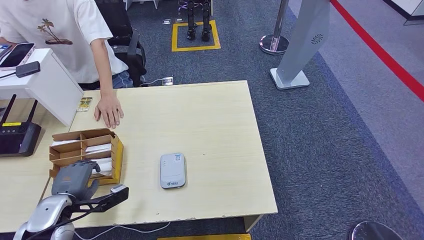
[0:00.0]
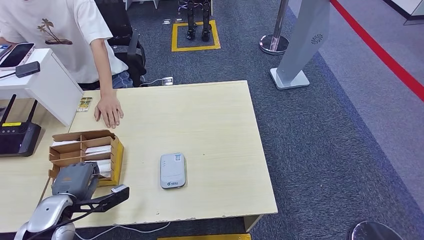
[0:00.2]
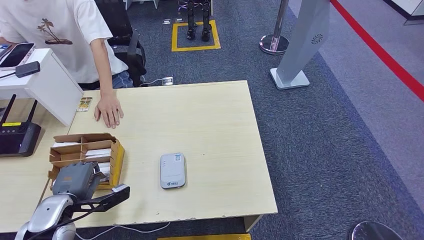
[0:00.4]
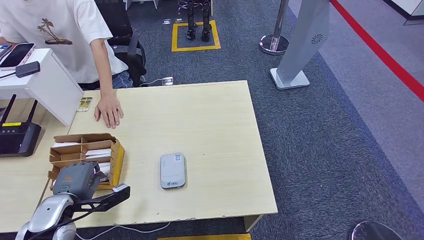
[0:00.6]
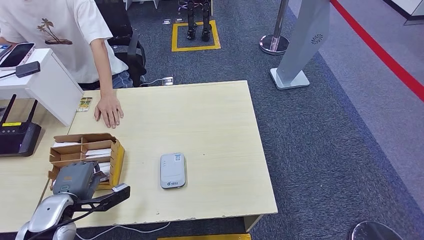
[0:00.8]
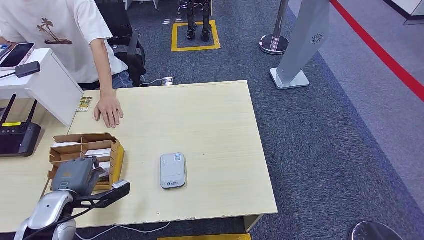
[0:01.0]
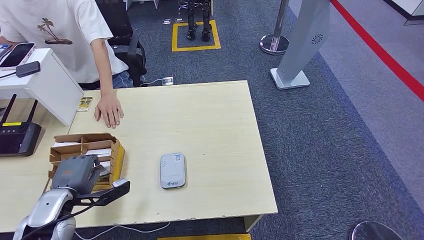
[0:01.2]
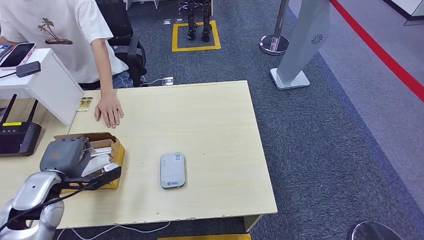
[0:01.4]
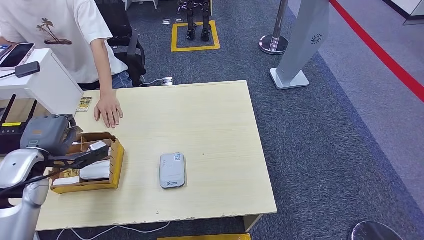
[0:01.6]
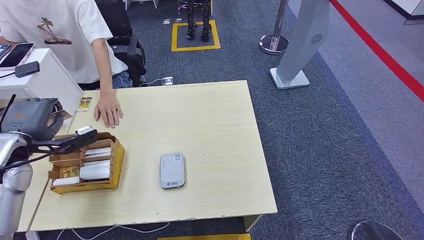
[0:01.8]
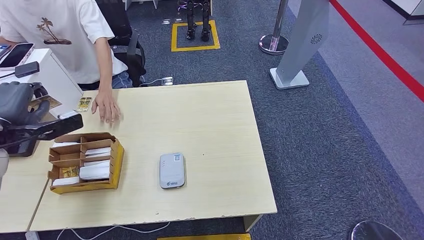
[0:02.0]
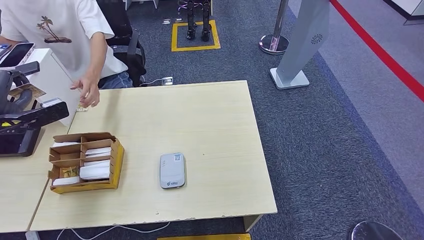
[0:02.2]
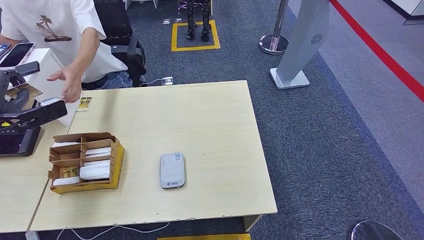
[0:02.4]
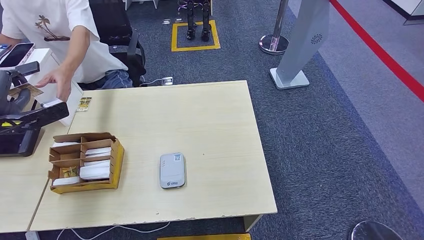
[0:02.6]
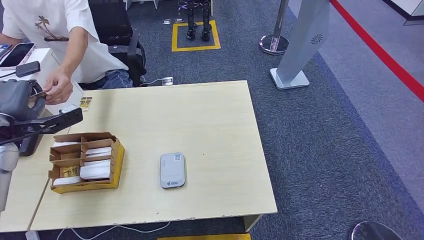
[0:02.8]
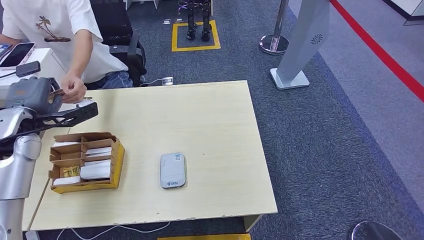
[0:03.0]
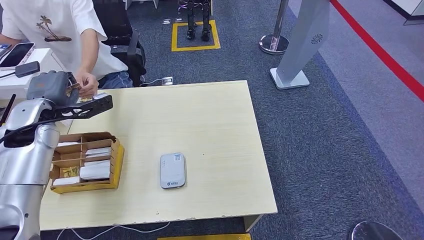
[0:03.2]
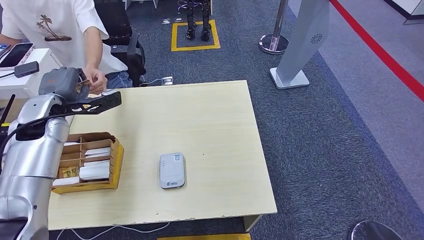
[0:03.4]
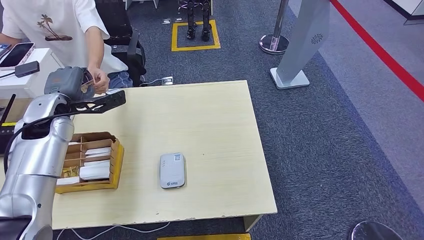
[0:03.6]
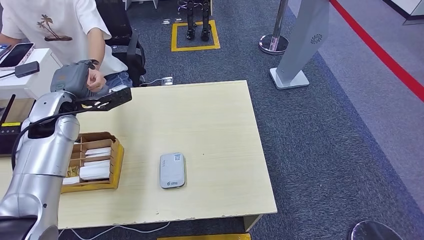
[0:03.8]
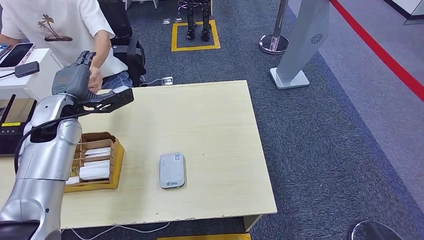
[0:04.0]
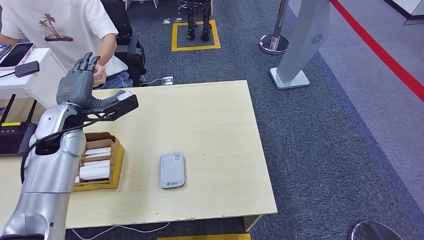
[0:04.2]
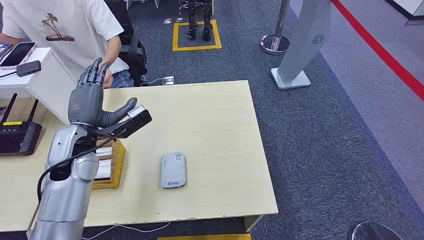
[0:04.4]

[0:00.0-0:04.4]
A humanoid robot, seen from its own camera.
Step, 0:01.8 to 0:04.4: Hand the room key to the person.
0:00.0 to 0:01.4: The left hand is displaced upward by about 5 cm.
0:01.4 to 0:03.0: The left hand goes approximately 15 cm upward and forward.
0:03.0 to 0:04.4: The left hand travels to the right by about 10 cm.

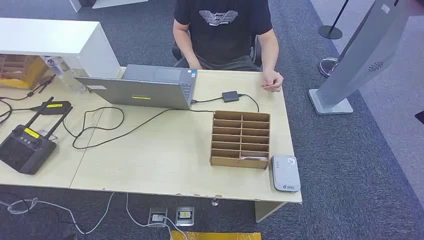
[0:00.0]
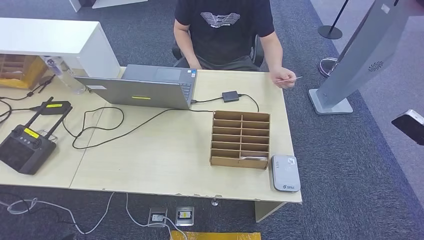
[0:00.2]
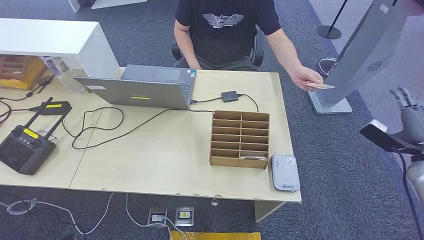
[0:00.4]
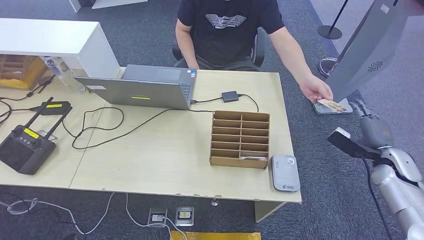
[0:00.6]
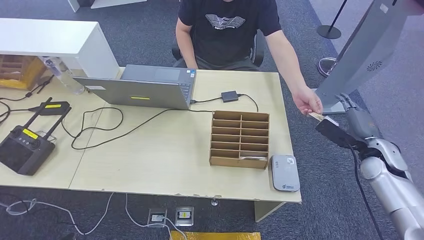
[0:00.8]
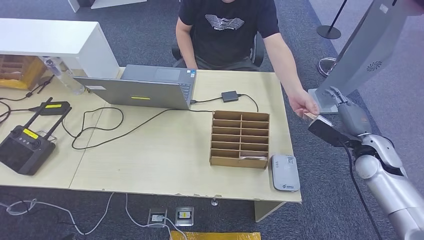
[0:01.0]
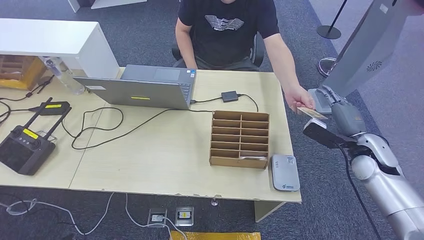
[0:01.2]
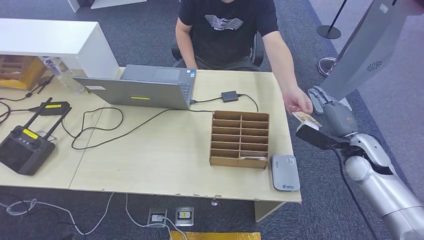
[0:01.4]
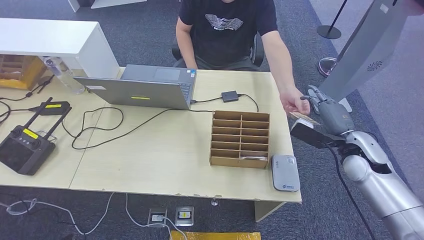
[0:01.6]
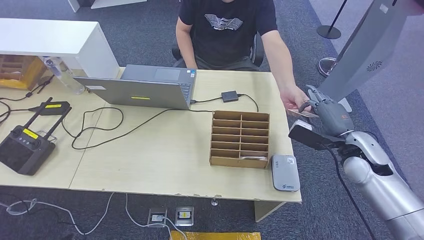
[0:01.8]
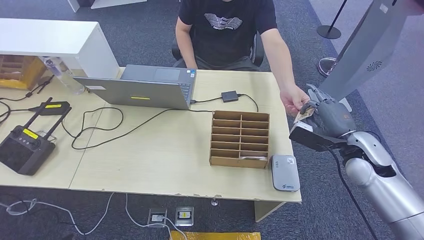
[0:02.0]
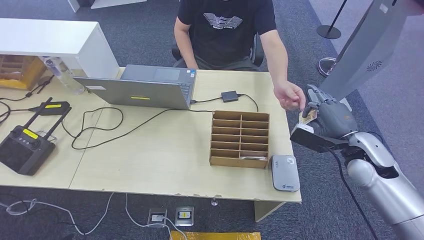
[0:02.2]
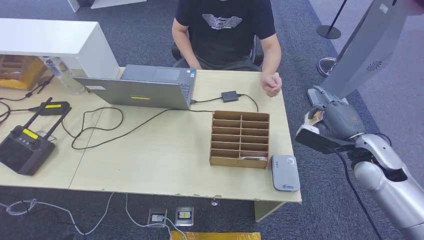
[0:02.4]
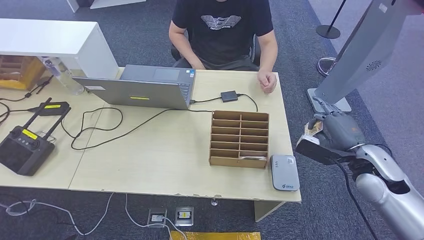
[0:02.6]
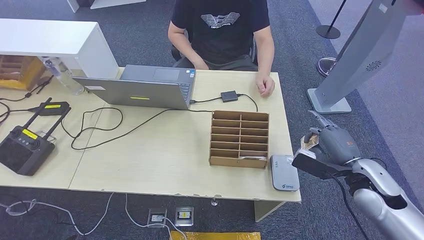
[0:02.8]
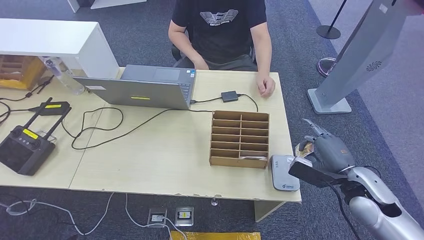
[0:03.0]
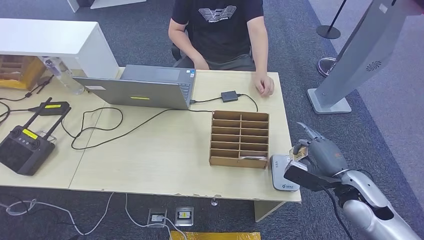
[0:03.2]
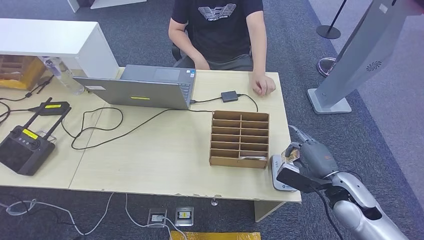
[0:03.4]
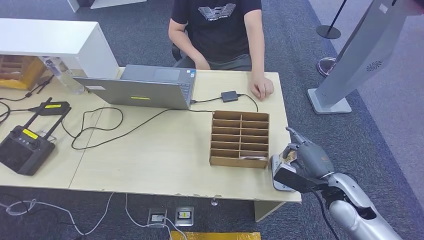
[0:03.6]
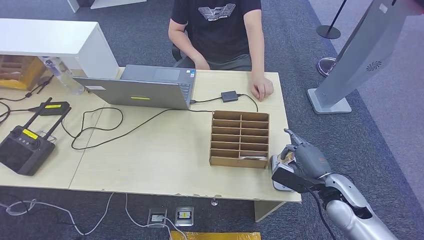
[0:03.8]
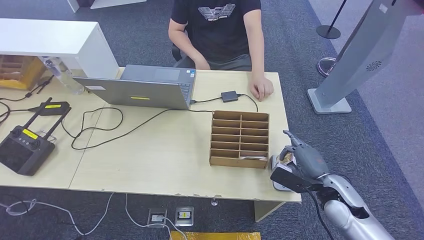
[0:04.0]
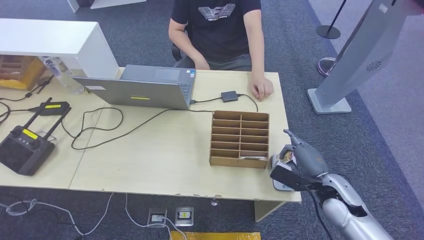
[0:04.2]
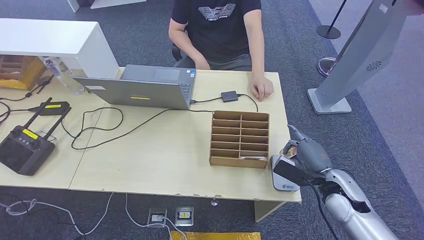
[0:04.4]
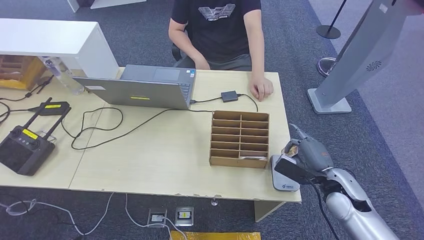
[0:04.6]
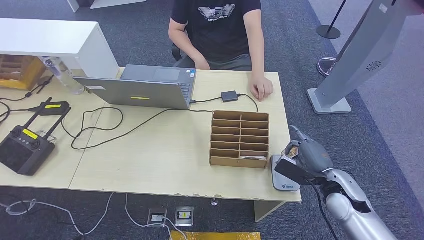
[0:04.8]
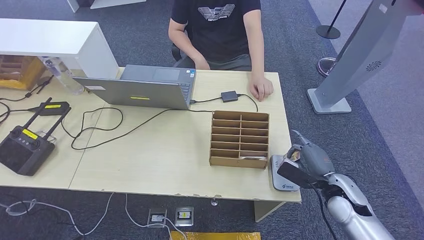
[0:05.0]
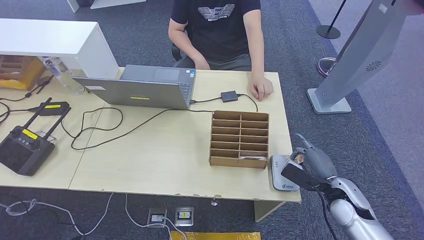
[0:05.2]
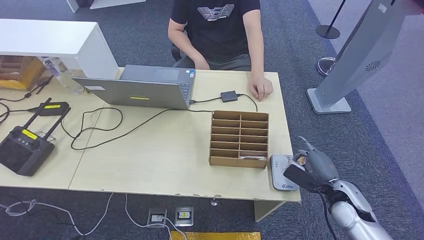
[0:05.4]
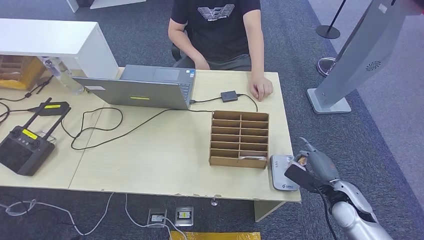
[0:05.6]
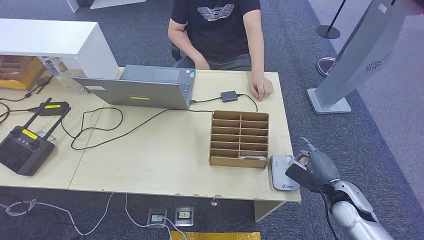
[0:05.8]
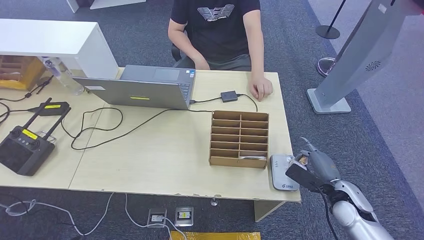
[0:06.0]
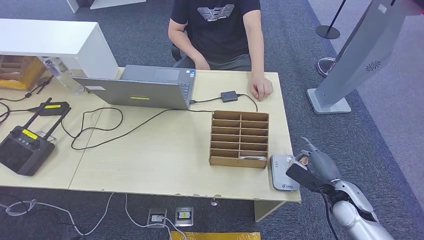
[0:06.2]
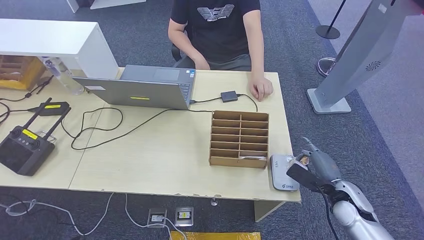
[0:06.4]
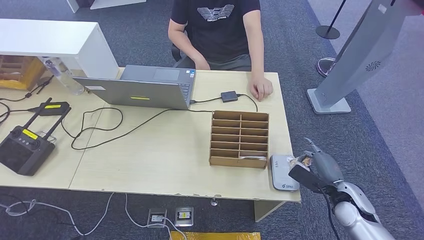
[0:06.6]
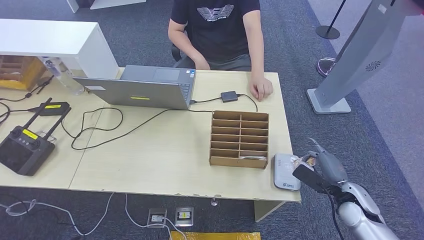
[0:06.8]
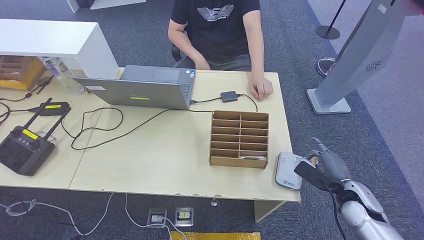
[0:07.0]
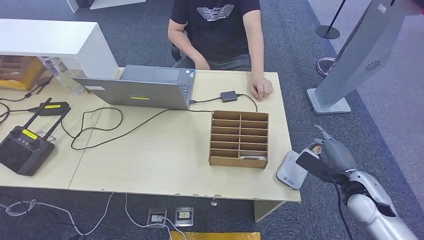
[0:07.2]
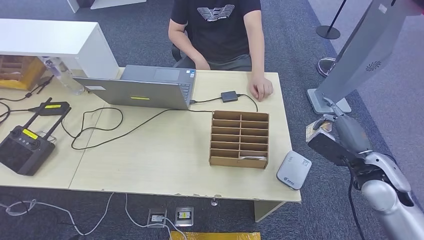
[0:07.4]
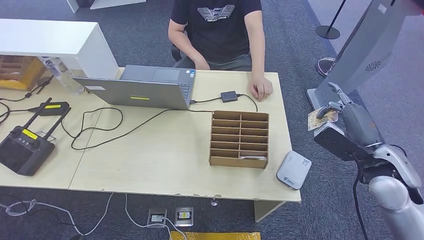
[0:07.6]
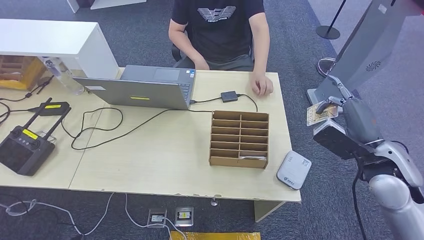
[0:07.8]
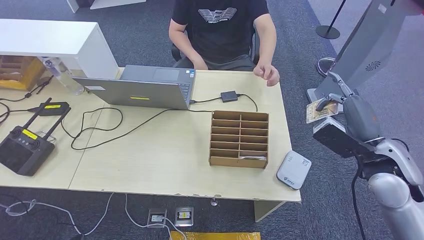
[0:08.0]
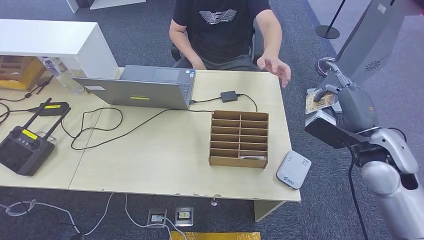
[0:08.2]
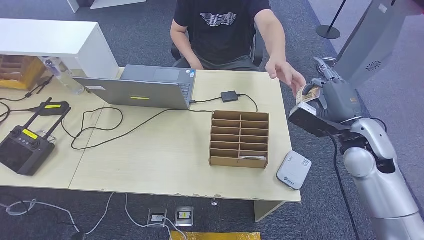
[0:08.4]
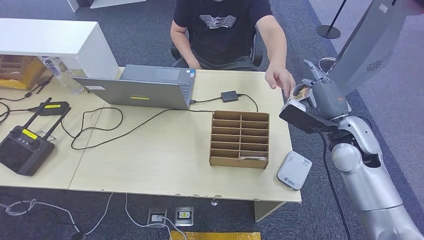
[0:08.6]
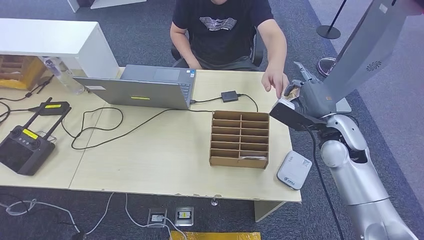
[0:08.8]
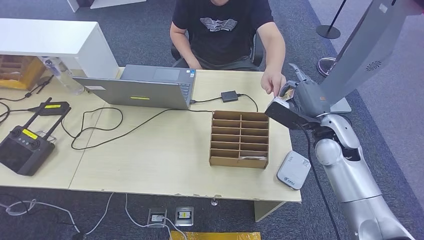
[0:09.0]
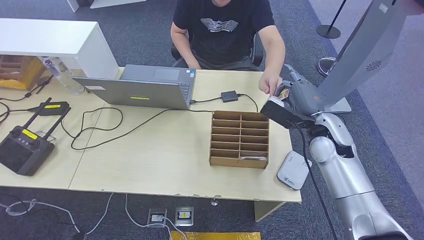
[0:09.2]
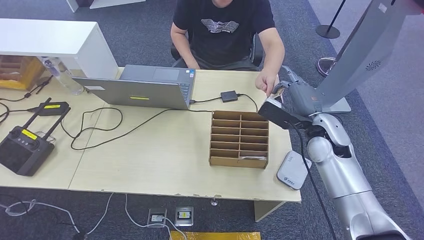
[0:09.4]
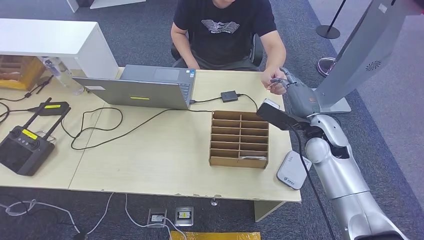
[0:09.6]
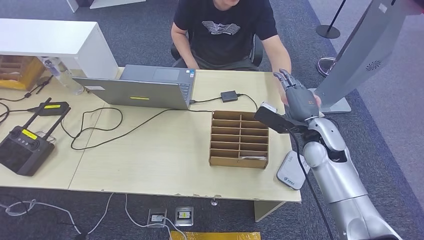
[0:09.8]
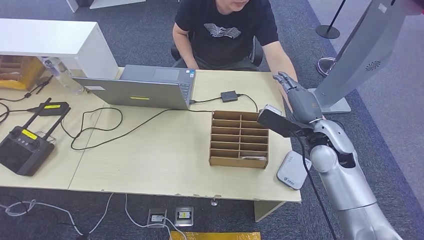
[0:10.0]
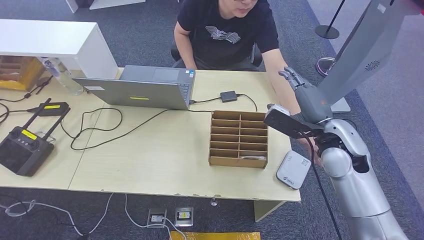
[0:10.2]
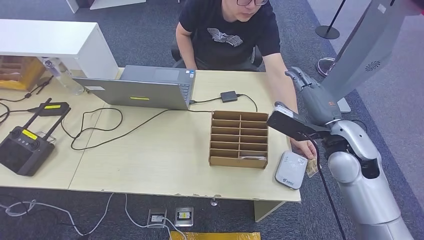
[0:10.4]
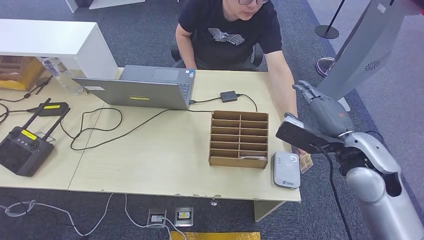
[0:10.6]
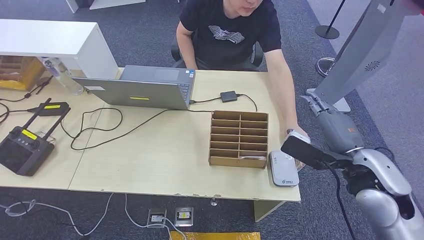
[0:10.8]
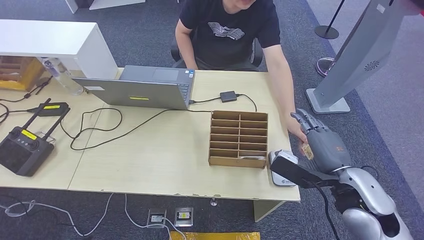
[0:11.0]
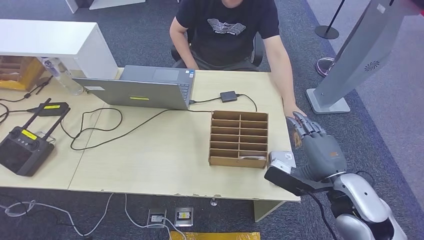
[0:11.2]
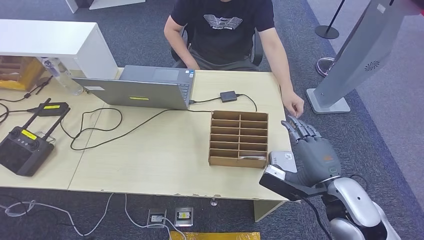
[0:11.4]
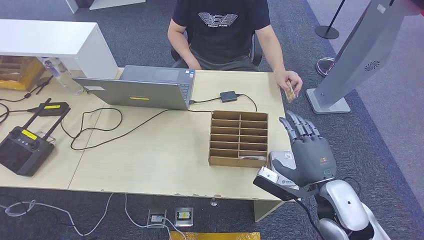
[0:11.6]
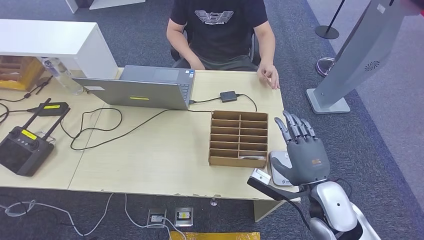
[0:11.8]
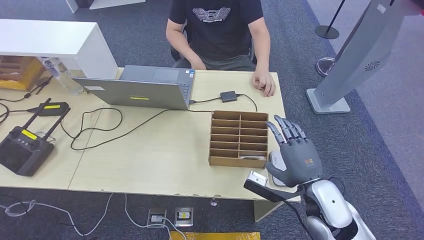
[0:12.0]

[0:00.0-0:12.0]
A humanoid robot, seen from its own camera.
Step, 0:00.0 to 0:02.2: Take the ID card from the person's hand.
Step, 0:02.6 to 0:07.0: Place the ID card on the card reader.
Step, 0:07.2 to 0:09.6: Hand the ID card to the person.
0:01.6 to 0:03.0: The right hand heads backward, covering roughly 10 cm.
0:03.0 to 0:04.4: The right hand moves some 5 cm.
0:04.4 to 0:06.0: The right hand changes place by about 5 cm.
0:06.0 to 0:07.6: The right hand heads upward, covering roughly 15 cm.
0:07.6 to 0:09.0: The right hand travels forward and to the left by some 10 cm.
0:09.0 to 0:10.4: The right hand moves roughly 5 cm.
0:10.4 to 0:12.0: The right hand travels backward and downward by about 15 cm.
